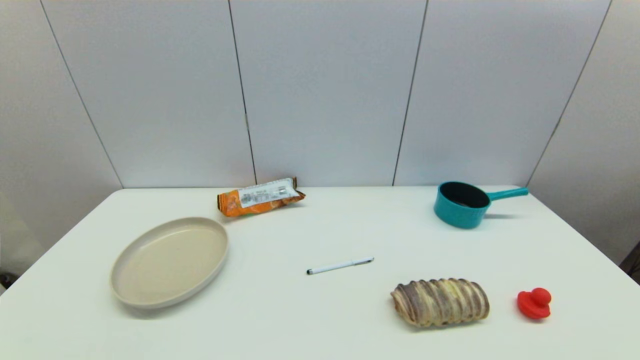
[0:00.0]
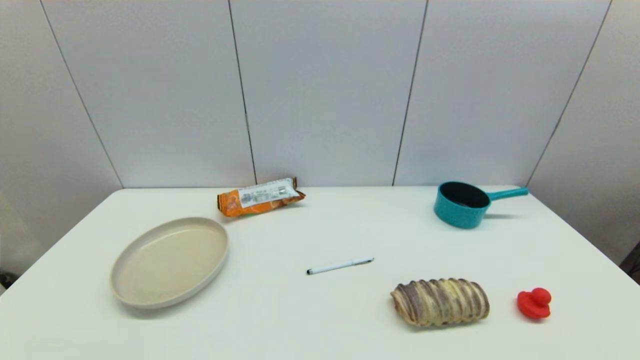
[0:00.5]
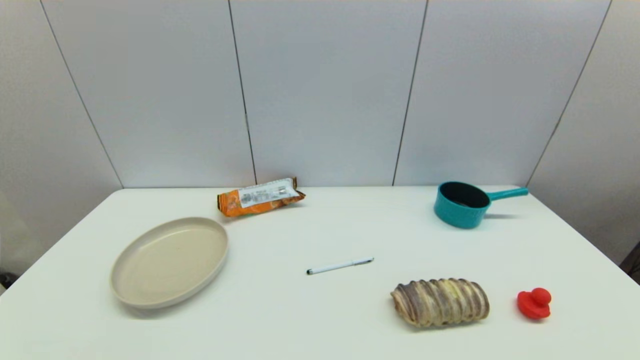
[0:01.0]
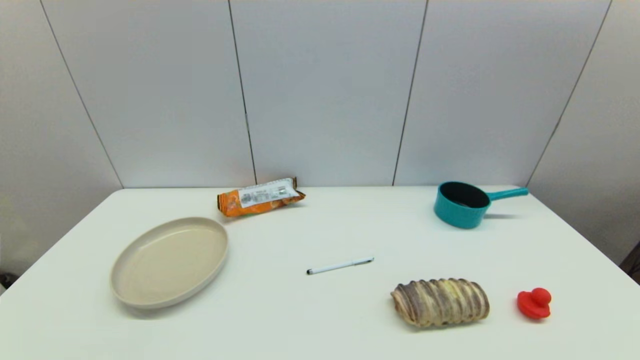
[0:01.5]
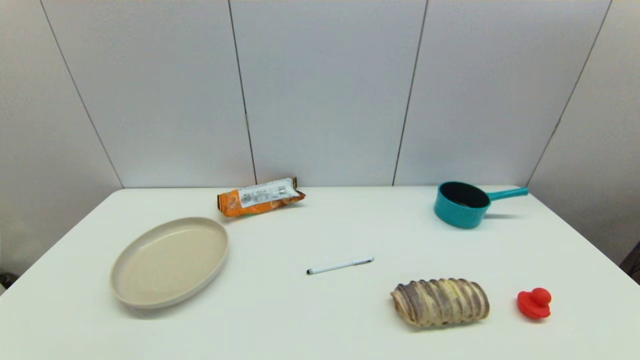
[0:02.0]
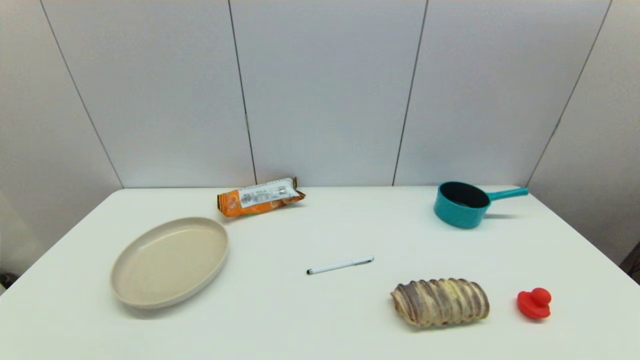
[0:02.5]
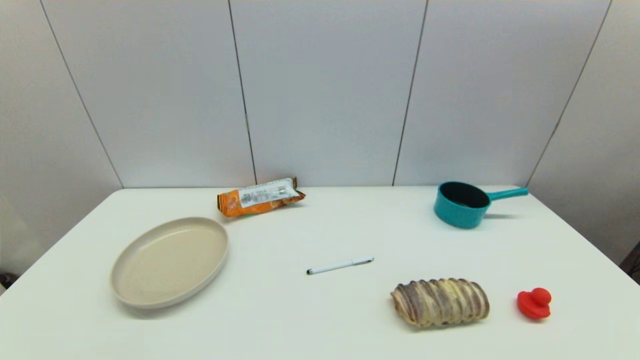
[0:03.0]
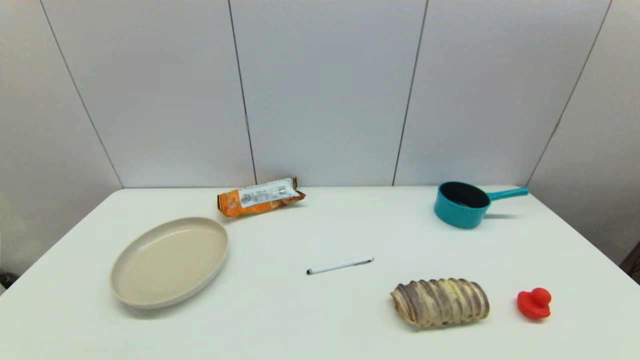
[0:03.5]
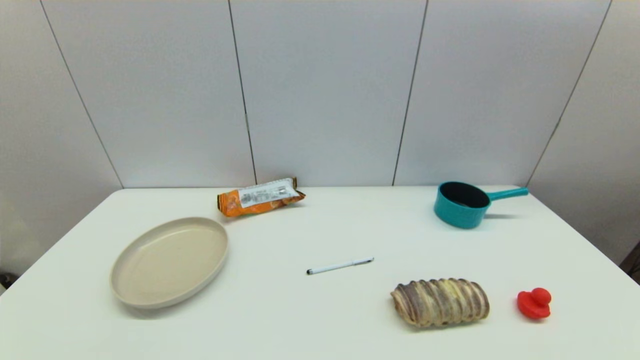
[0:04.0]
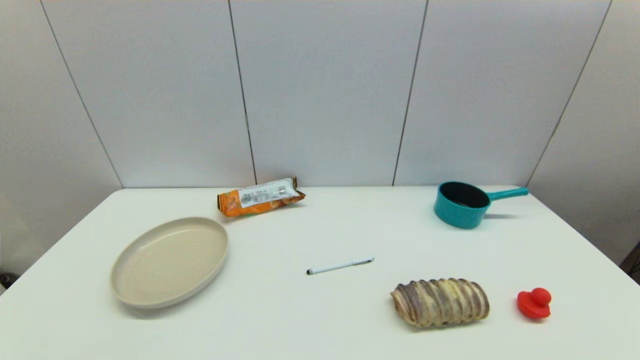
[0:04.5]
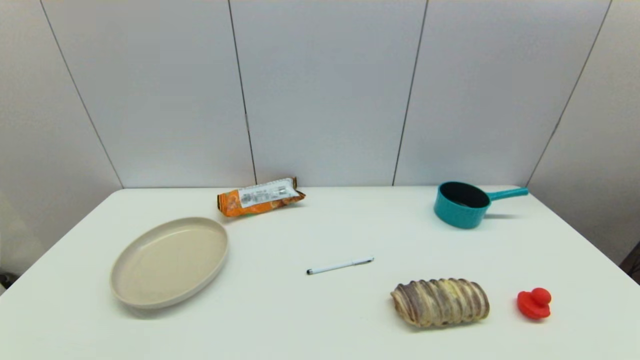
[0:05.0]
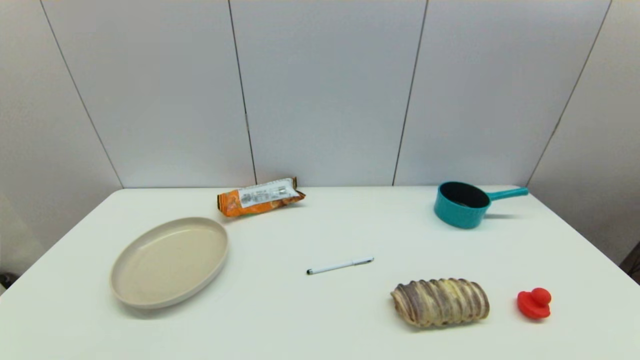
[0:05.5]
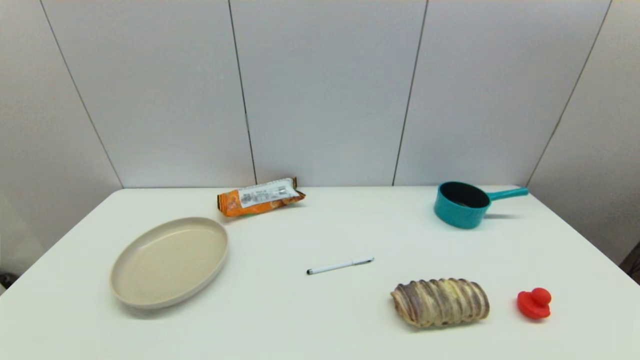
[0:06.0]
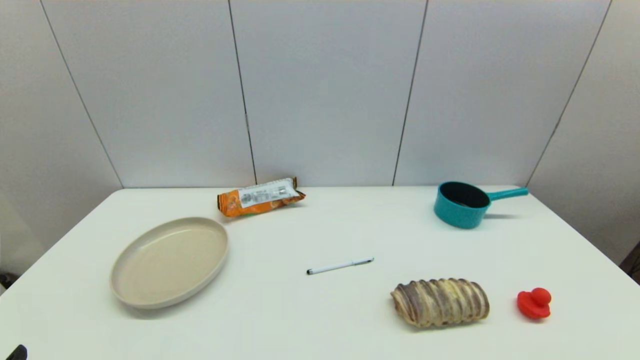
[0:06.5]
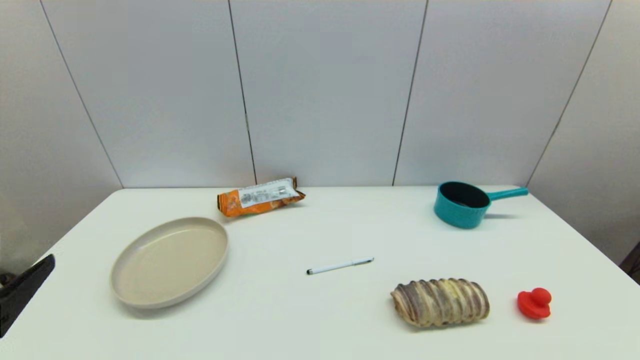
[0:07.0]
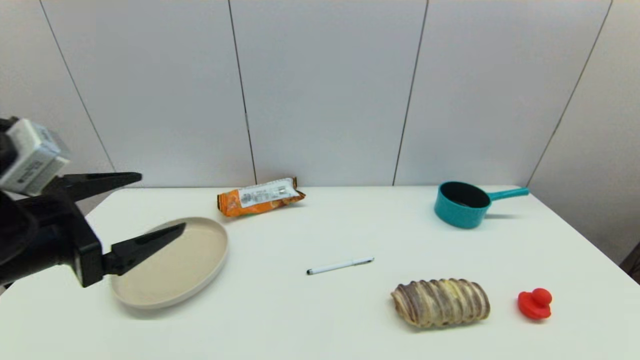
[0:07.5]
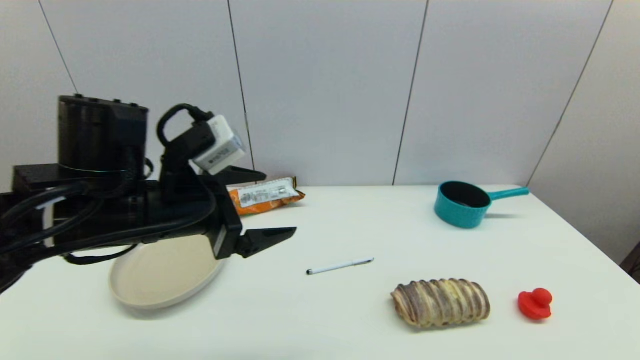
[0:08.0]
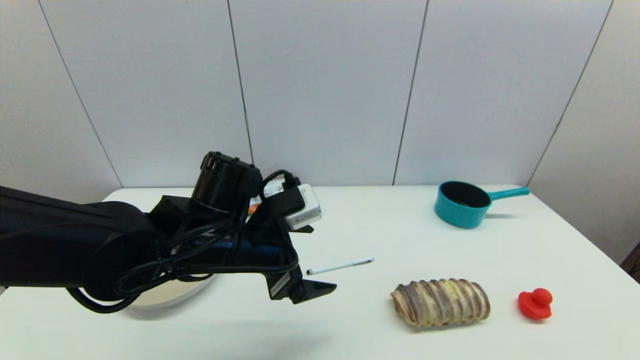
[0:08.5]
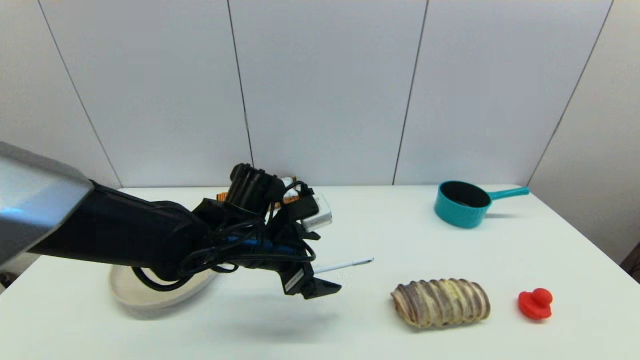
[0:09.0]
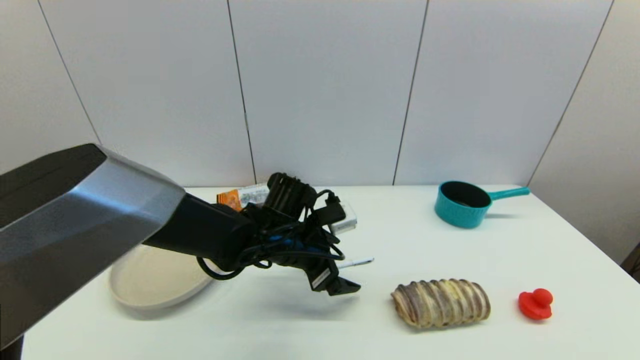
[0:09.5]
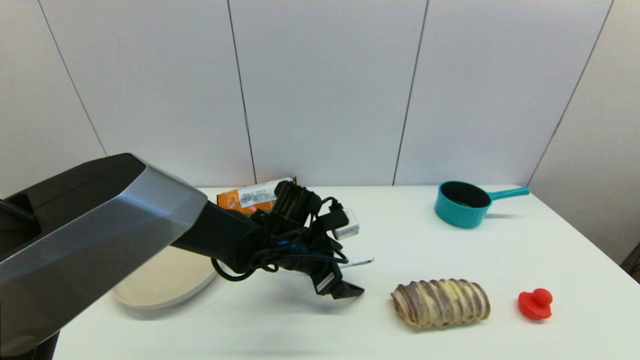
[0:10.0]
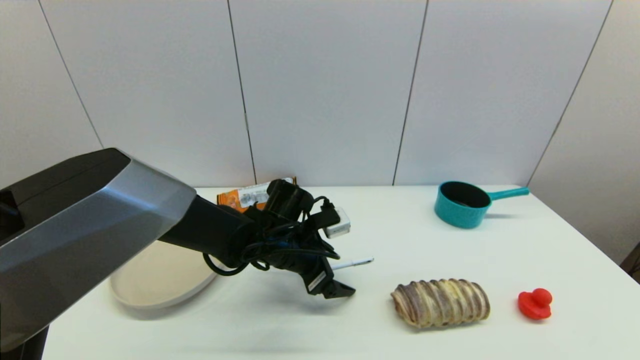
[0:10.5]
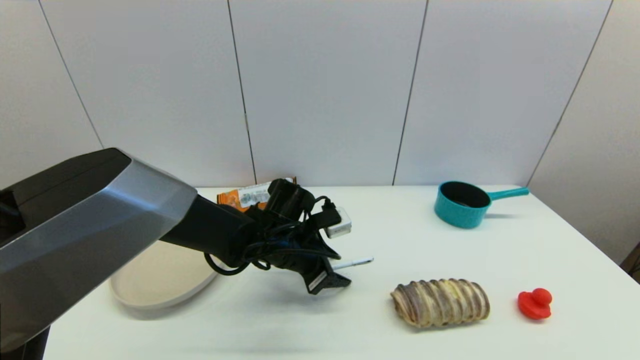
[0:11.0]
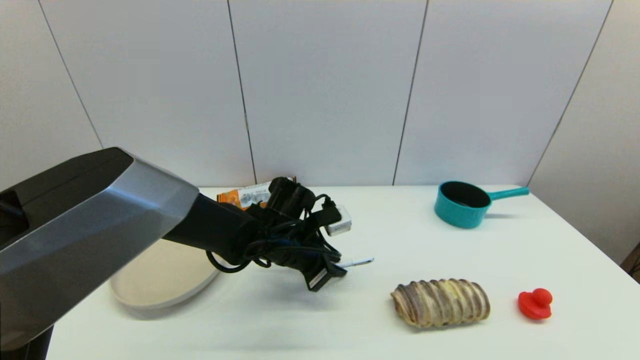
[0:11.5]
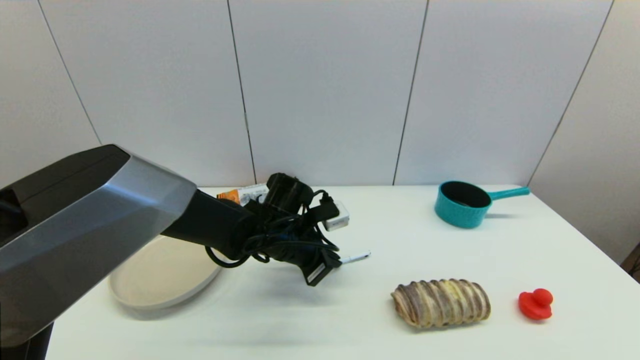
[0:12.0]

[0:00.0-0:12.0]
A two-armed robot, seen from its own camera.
Task of the whole recording: put the pen in the designated position.
Step, 0:06.5 to 0:11.5: Grasp the sign pen with left gripper.
0:00.0 to 0:06.0: Neither gripper changes place.
0:06.0 to 0:08.0: The left gripper heads forward, upward and to the right, covering roughly 30 cm.
0:08.0 to 0:10.0: The left gripper is displaced downward, to the right and forward by about 20 cm.
0:10.0 to 0:12.0: The left gripper closes.

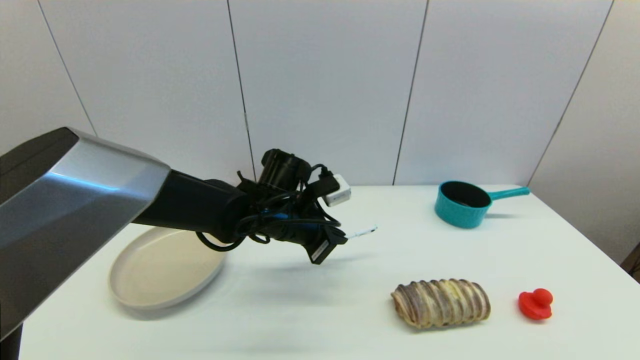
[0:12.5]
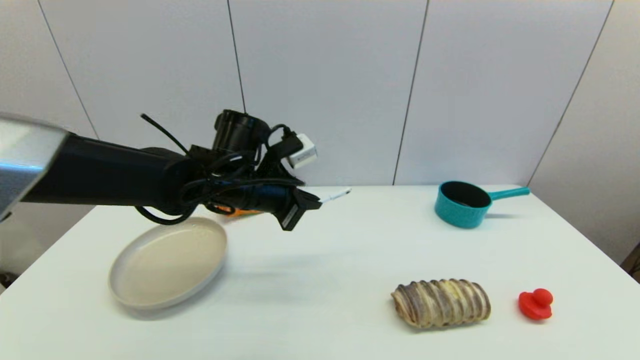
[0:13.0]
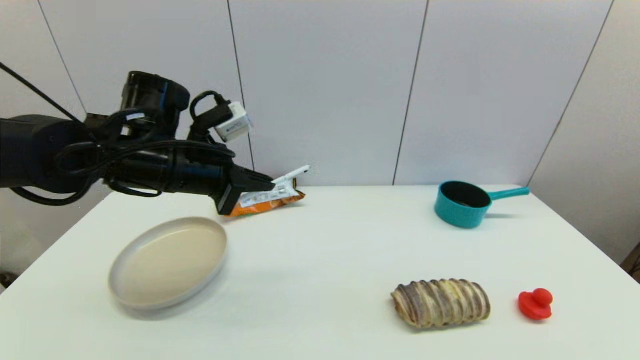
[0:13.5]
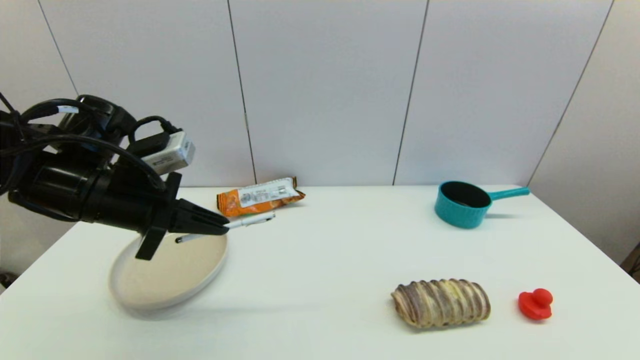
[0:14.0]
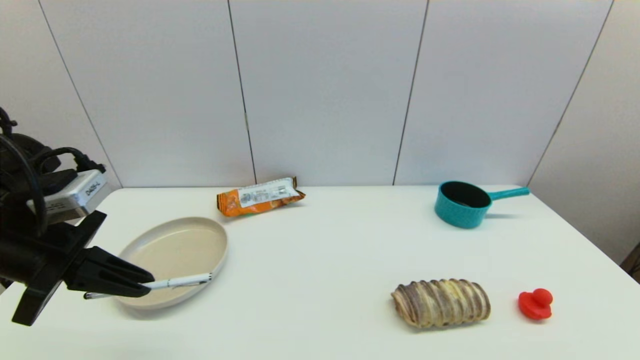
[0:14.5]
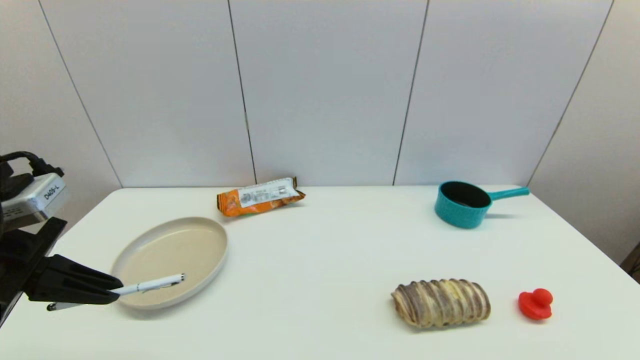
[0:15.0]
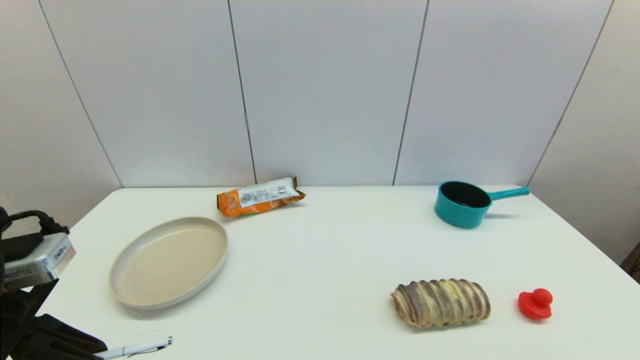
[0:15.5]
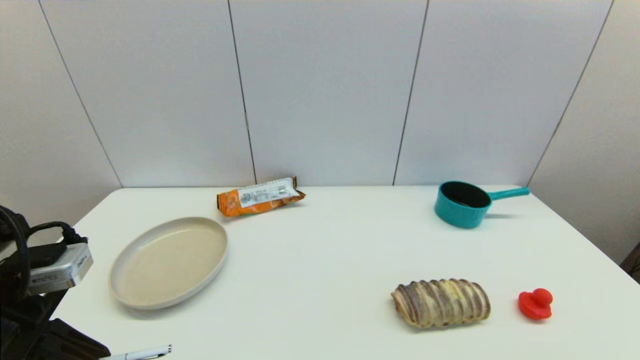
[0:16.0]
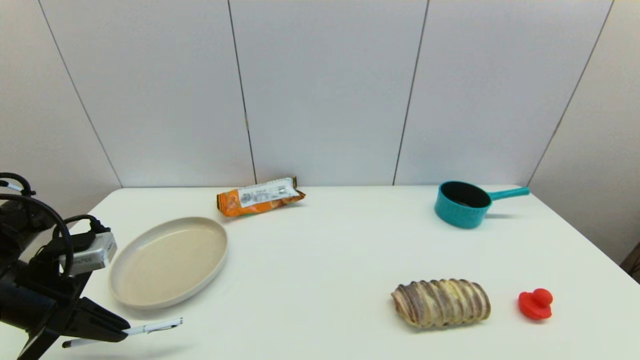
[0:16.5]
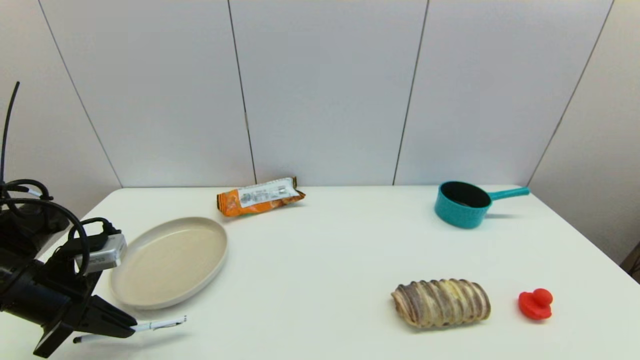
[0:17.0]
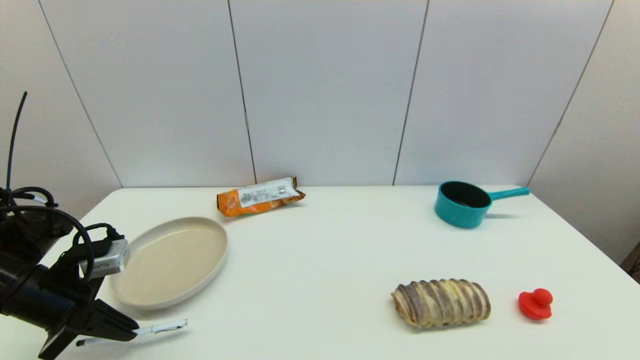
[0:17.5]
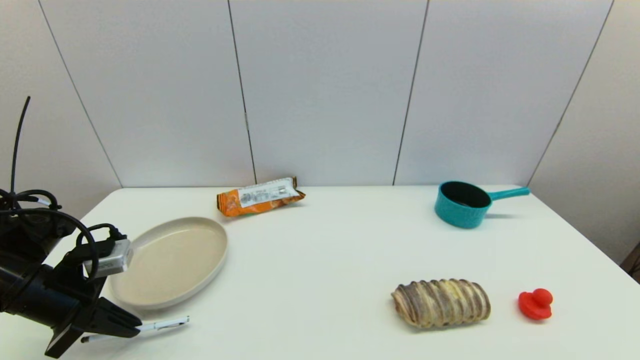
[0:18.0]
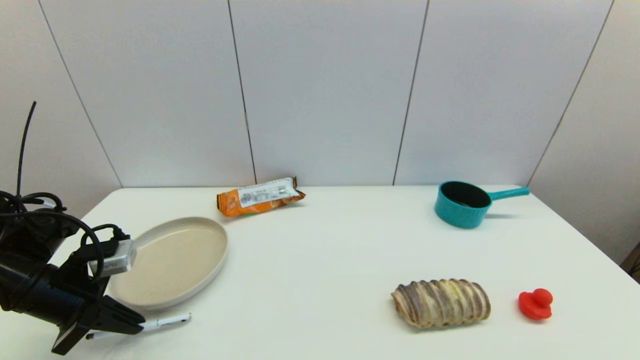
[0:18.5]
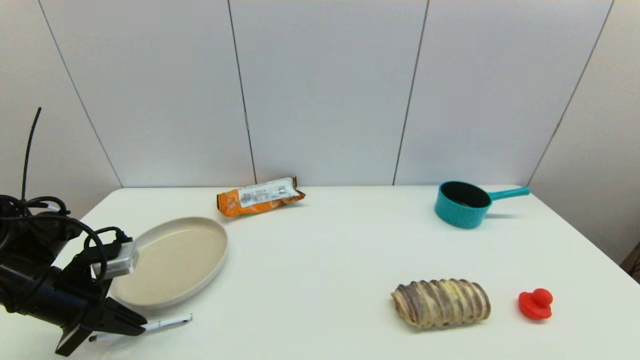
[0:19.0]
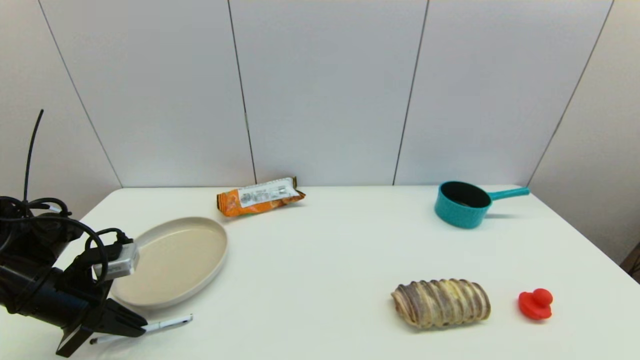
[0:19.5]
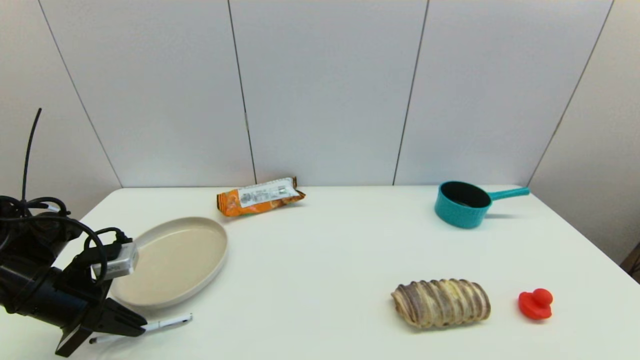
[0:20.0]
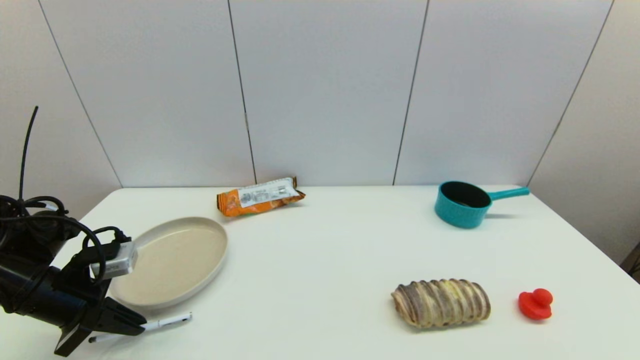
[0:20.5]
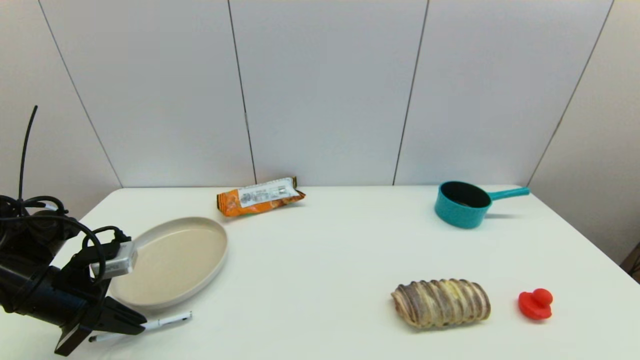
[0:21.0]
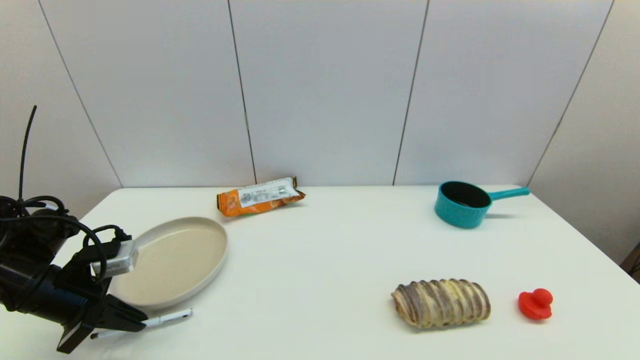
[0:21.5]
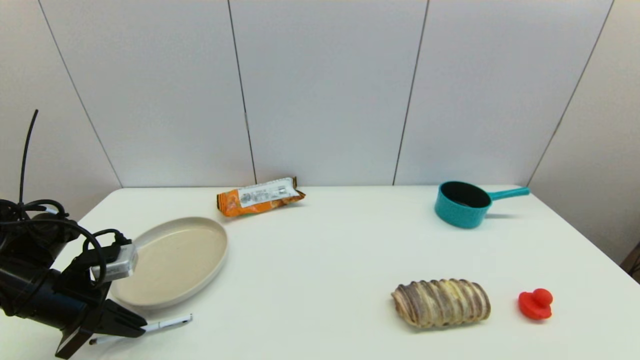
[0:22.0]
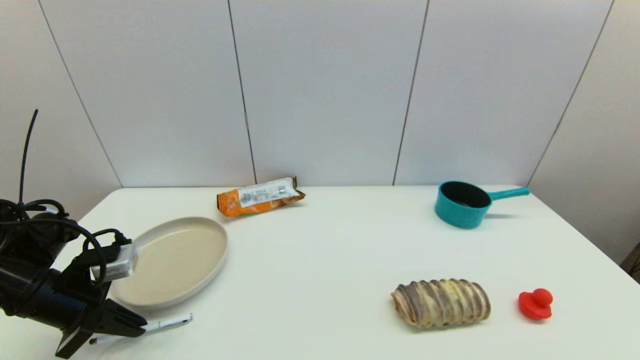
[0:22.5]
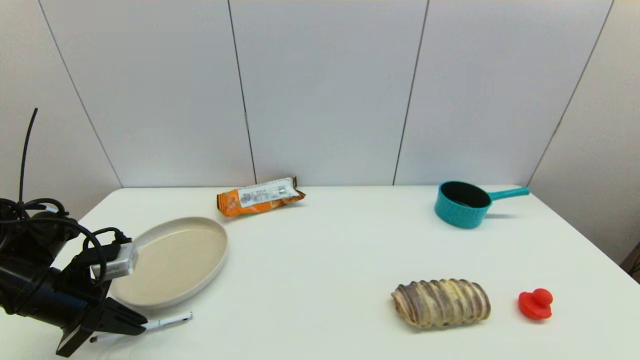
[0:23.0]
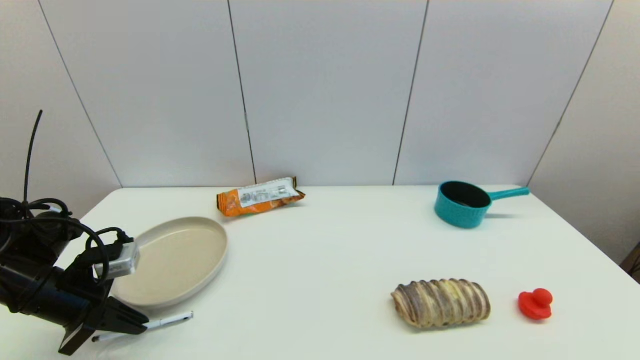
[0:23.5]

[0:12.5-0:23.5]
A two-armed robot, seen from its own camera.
Task of the whole recording: put the pen in the designated position.
0:12.5 to 0:14.5: The left gripper travels to the left, backward and upward by some 30 cm.
0:14.5 to 0:16.0: The left gripper moves downward, approximately 5 cm.
0:16.0 to 0:18.0: The left gripper goes about 10 cm forward and downward.
0:18.0 to 0:20.0: The grippers move only a little.
0:20.0 to 0:23.5: Neither gripper changes place.
